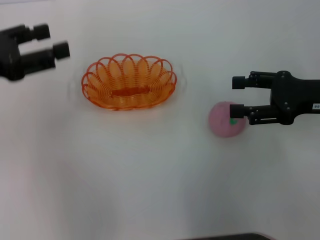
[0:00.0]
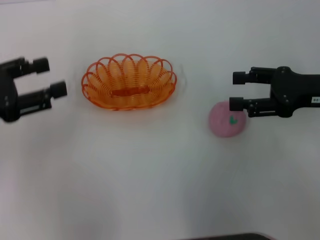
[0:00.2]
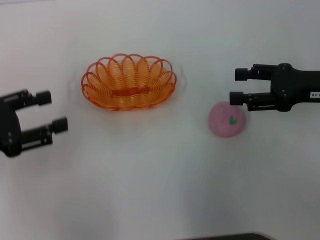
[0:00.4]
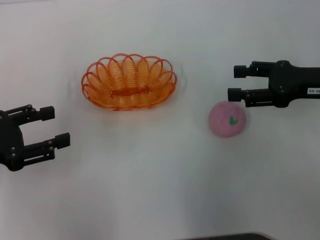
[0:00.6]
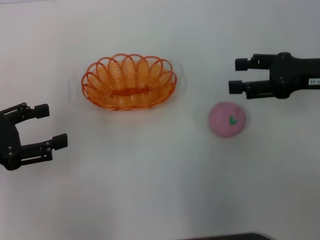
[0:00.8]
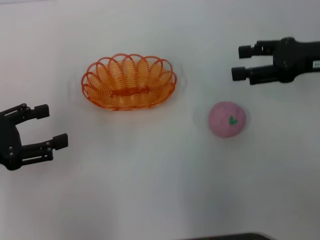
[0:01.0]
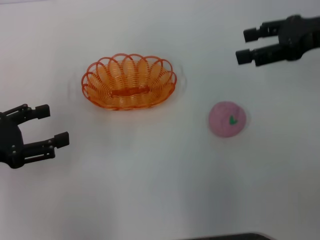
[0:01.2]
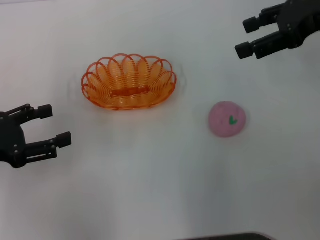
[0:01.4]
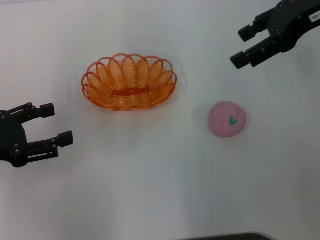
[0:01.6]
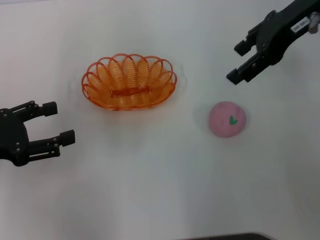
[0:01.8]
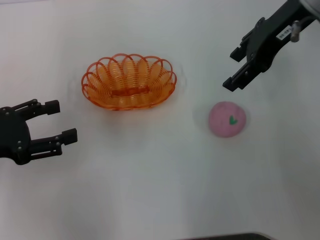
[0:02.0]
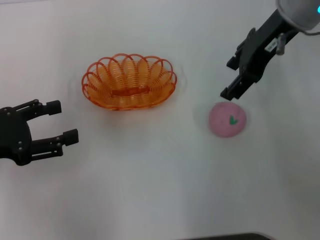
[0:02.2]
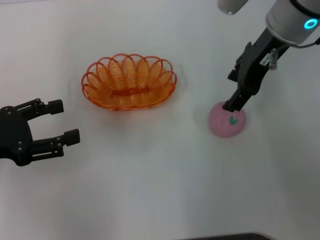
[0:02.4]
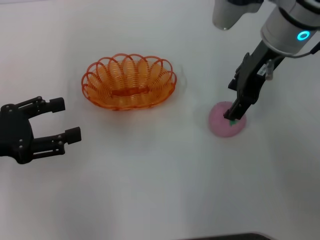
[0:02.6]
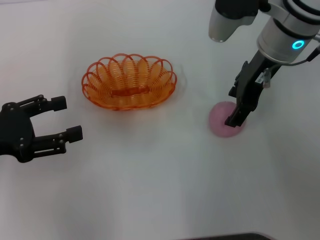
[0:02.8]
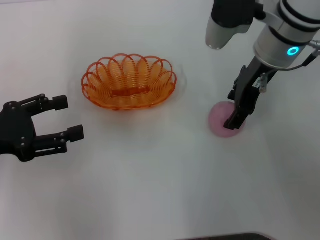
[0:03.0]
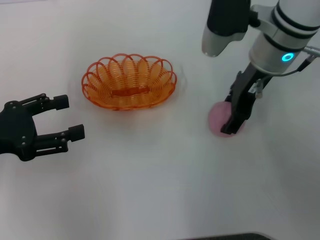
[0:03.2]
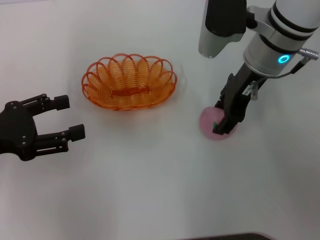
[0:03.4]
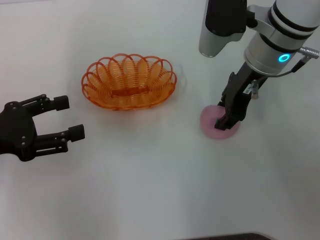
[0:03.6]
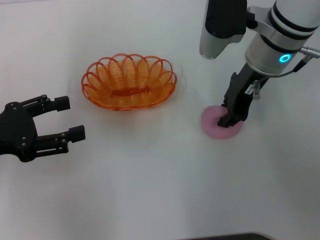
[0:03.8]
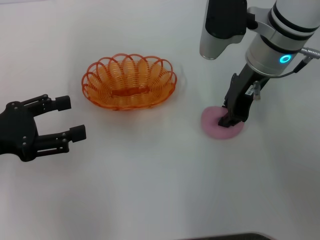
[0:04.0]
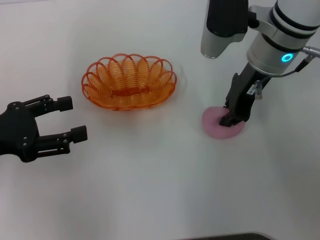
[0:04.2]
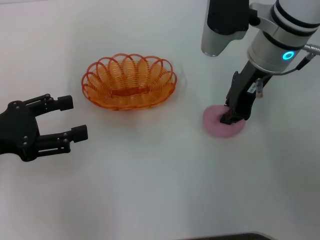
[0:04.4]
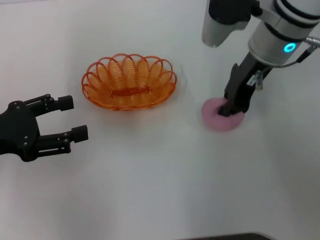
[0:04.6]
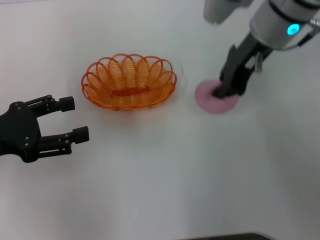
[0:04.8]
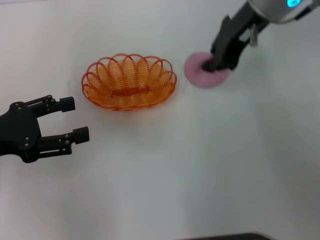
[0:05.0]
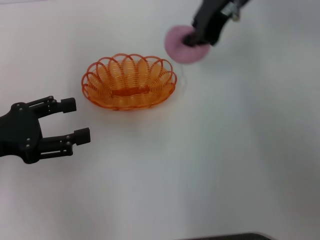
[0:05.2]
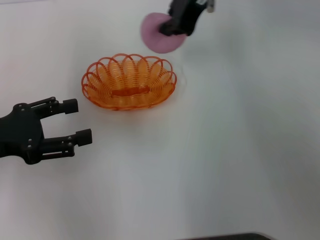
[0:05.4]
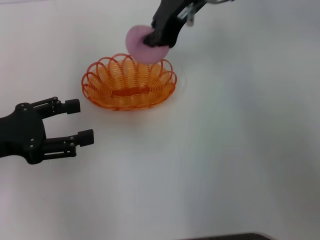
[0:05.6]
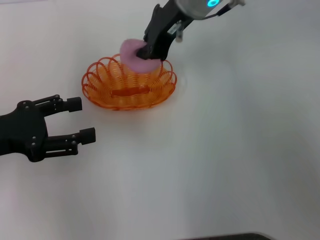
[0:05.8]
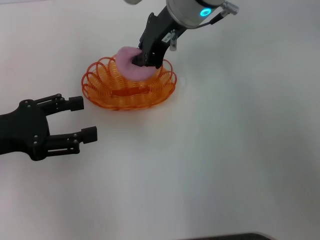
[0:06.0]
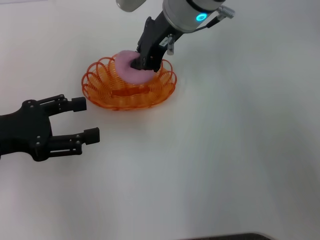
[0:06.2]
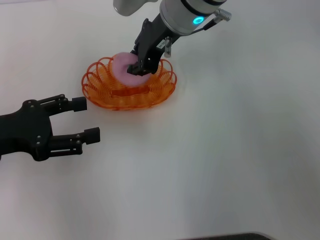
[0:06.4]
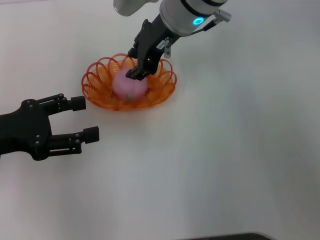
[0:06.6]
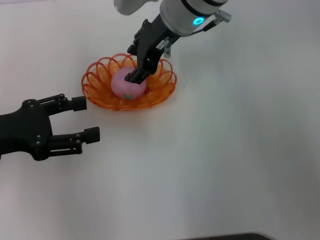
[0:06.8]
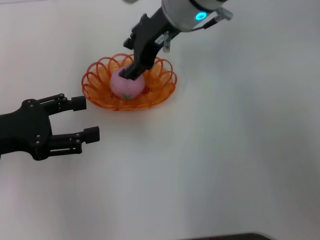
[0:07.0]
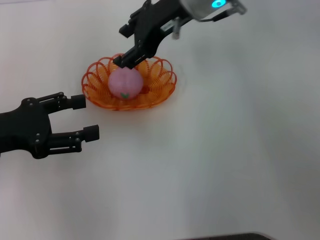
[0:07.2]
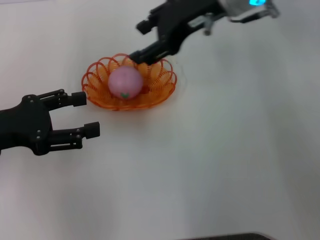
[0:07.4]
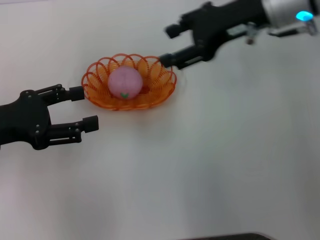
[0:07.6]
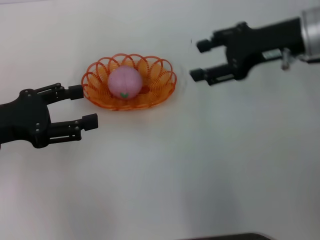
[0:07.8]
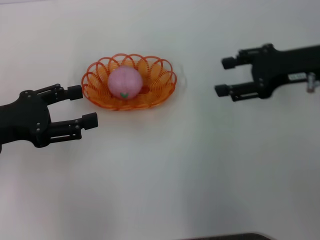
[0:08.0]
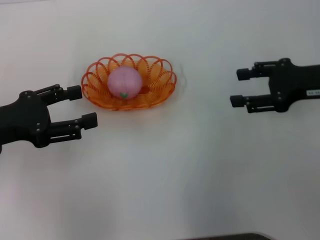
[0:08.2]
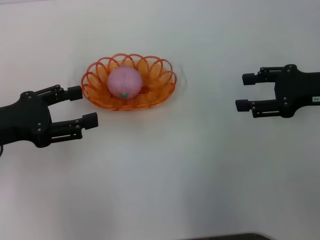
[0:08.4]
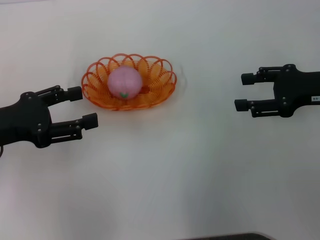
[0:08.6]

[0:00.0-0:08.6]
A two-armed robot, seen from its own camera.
Step, 0:00.0 to 0:05.0: Pick up the peach with the right gripper.
Step, 0:05.2 to 0:06.8: Place the peach into the basket with the right gripper.
0:00.0 to 0:01.4: The left gripper heads downward and backward, covering roughly 10 cm. The right gripper moves upward and forward, about 15 cm.
0:01.4 to 0:02.8: The right gripper is displaced to the left and downward by about 15 cm.
0:02.8 to 0:04.4: The right gripper closes.
0:04.4 to 0:05.8: The right gripper is displaced to the left by about 10 cm.
0:05.8 to 0:07.2: The right gripper opens.
0:07.2 to 0:08.6: The right gripper heads to the right, backward and downward, covering about 25 cm.
